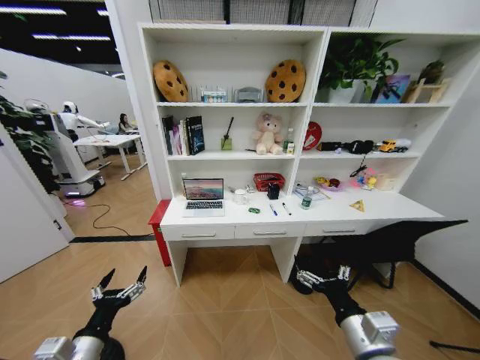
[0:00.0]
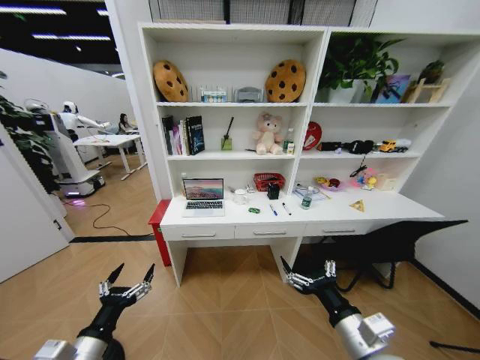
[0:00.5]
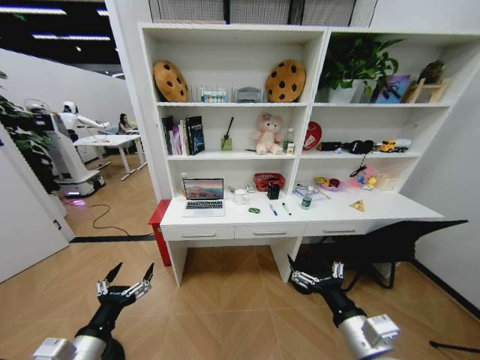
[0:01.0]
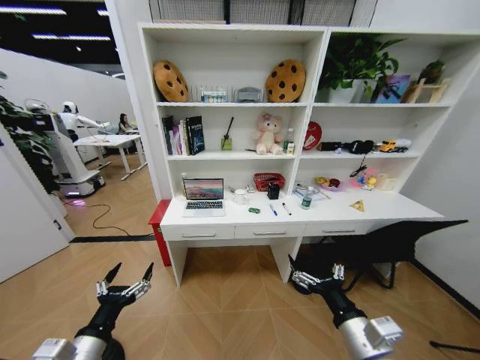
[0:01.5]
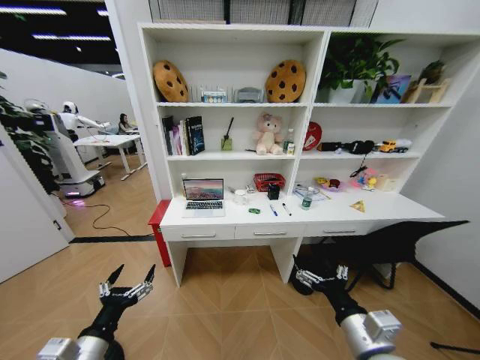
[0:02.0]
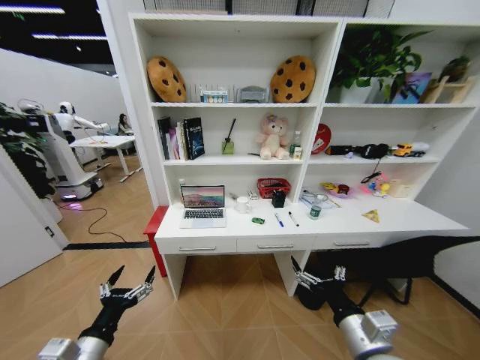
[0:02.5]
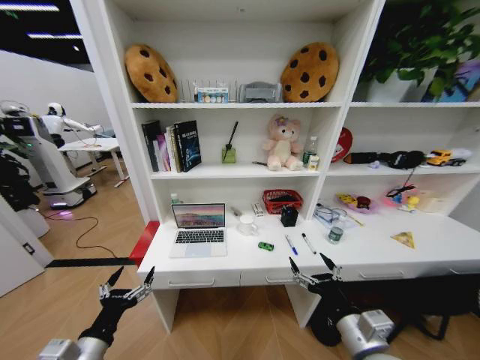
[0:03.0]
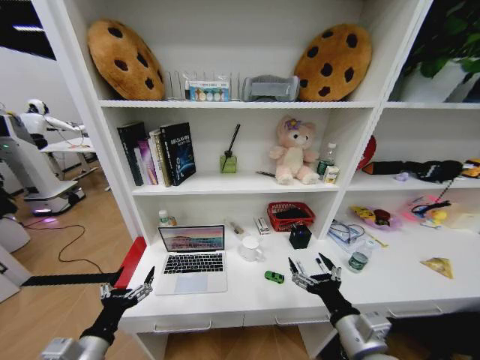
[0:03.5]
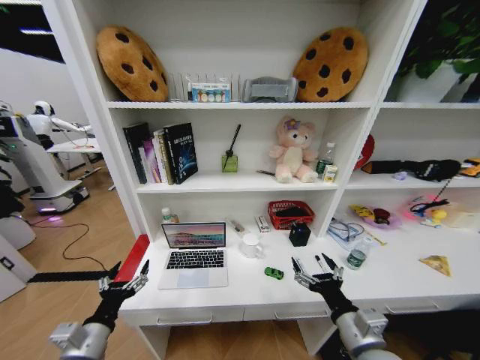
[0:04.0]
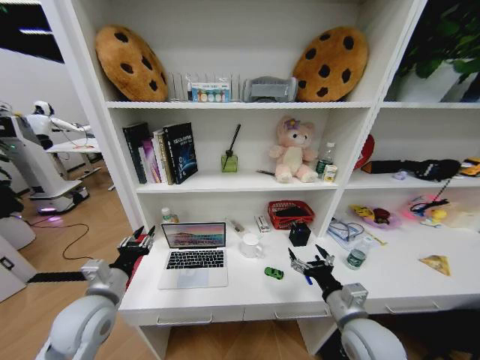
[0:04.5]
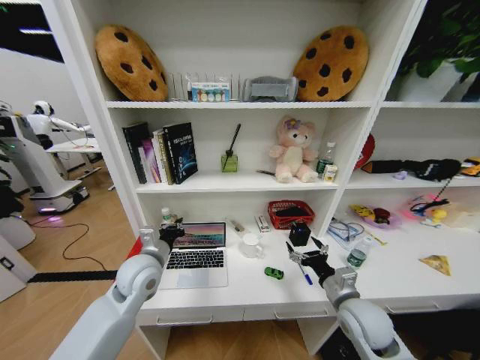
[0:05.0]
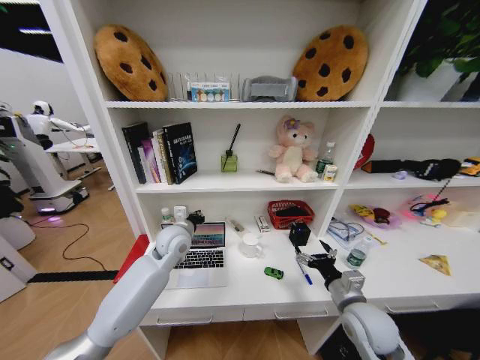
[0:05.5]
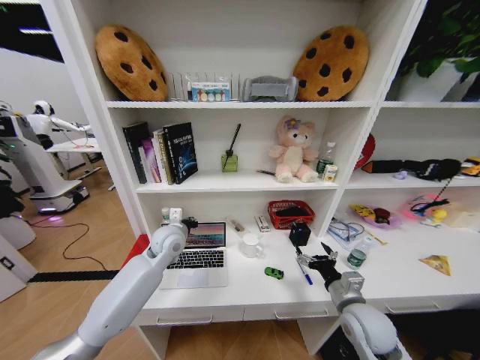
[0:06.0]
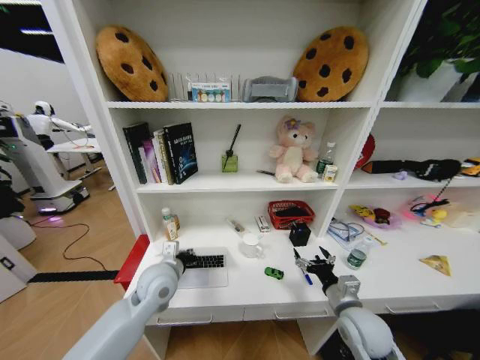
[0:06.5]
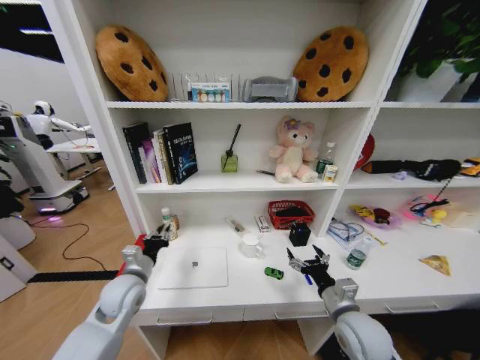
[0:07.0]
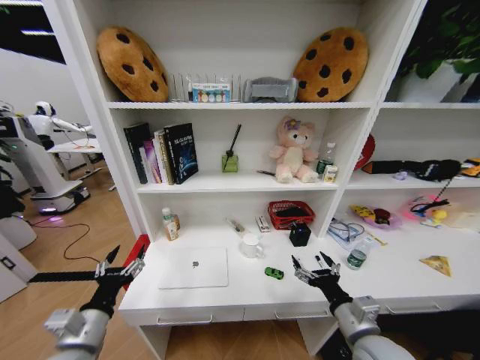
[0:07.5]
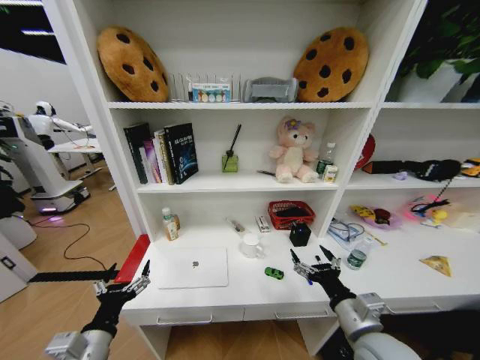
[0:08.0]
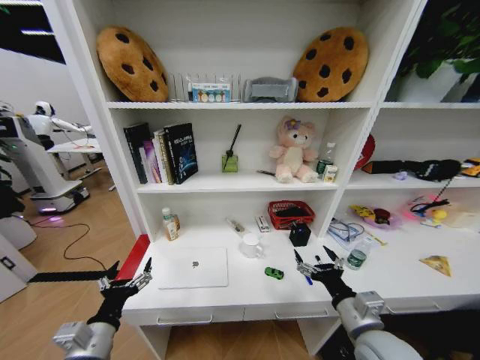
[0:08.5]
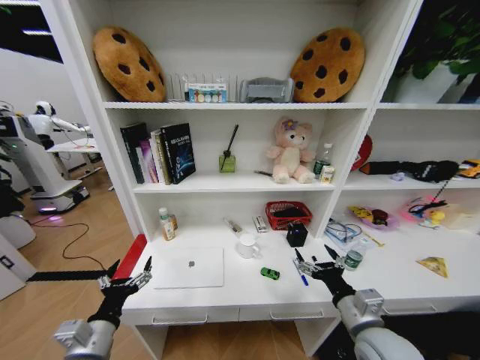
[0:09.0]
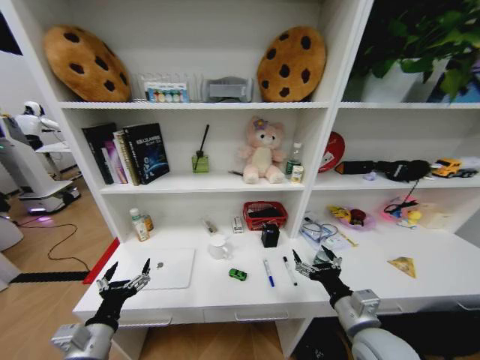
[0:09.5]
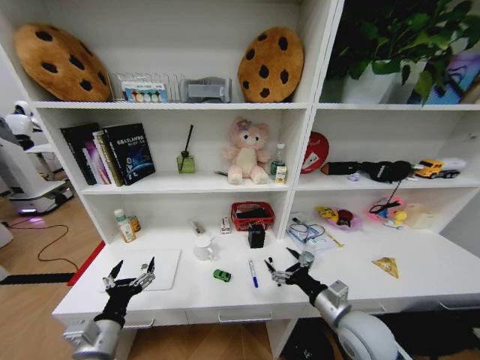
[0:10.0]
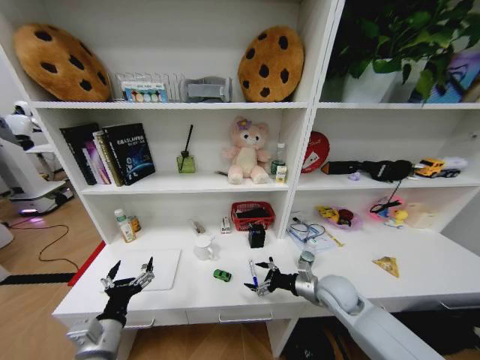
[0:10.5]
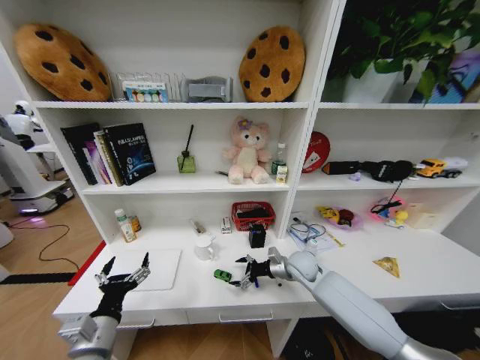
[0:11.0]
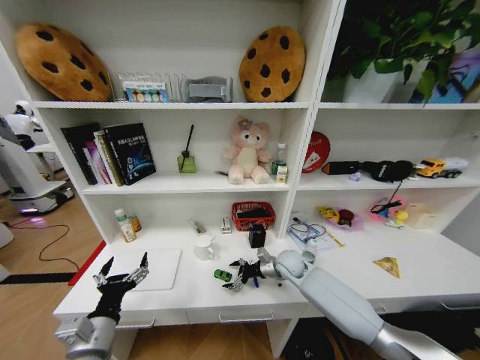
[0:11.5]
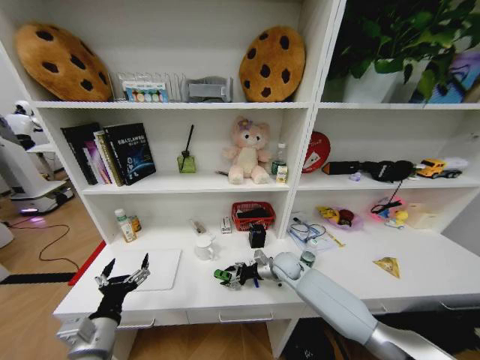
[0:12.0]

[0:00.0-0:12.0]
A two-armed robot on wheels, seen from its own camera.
Task of the whole recording: Organize the objects on the table.
4.0 to 6.0 s: The left gripper heads forward and to the right, covering approximately 30 cm, and closes; the right gripper shifts roughly 10 cm forward.
6.0 to 8.0 s: The left gripper is displaced backward by some 30 cm, and opens its fingers; the right gripper shifts approximately 10 cm backward and upward.
8.0 to 10.0 s: The right gripper moves roughly 5 cm.
10.0 to 12.0 s: The right gripper goes approximately 20 cm forward, and closes its fingers.

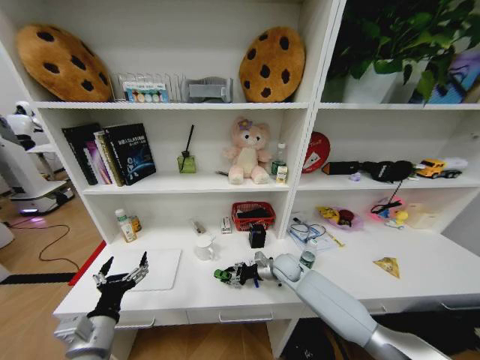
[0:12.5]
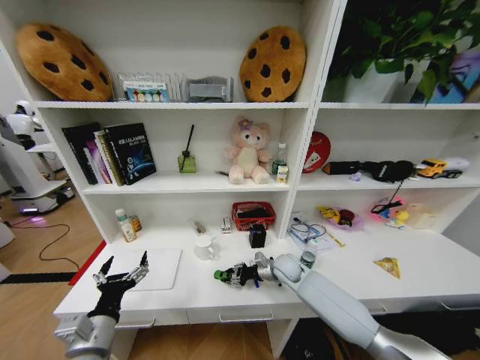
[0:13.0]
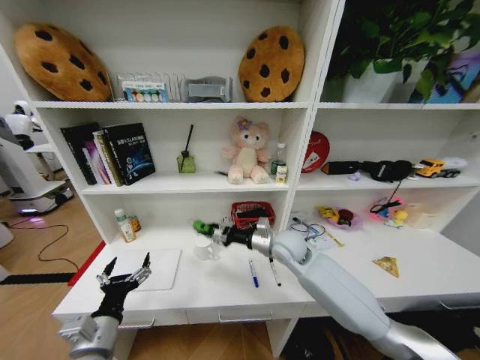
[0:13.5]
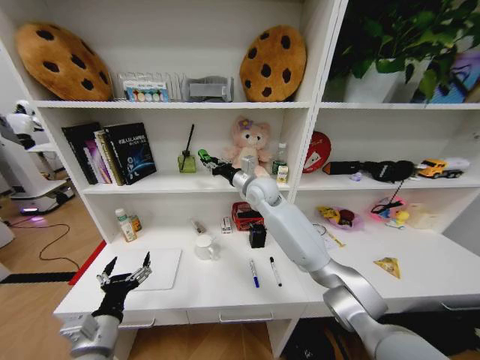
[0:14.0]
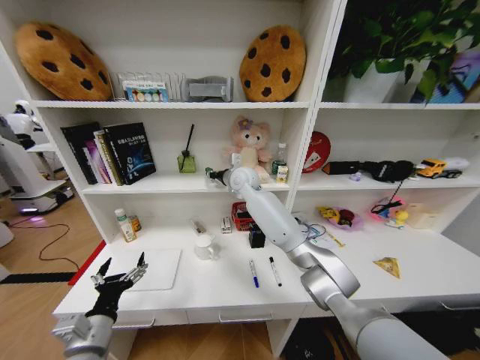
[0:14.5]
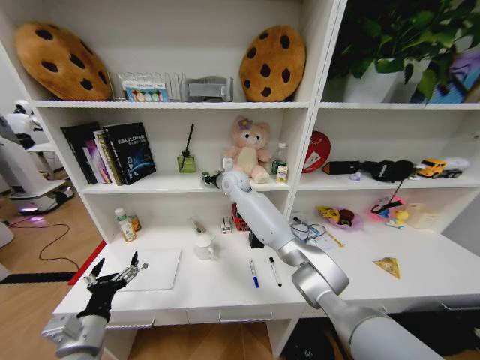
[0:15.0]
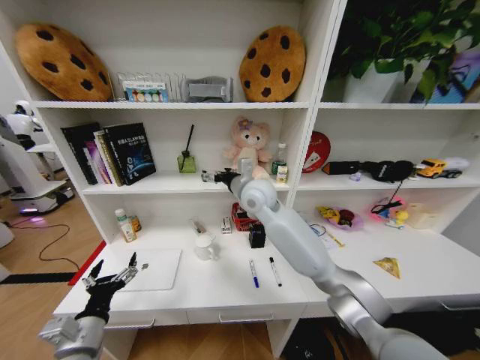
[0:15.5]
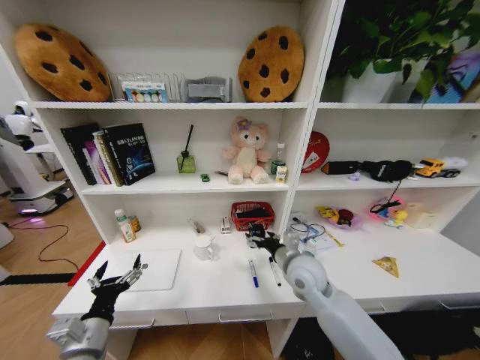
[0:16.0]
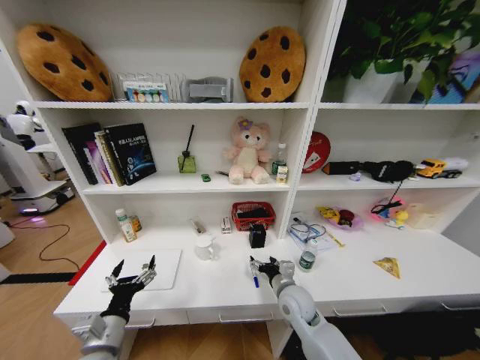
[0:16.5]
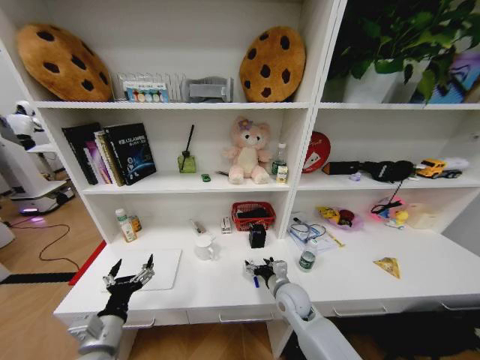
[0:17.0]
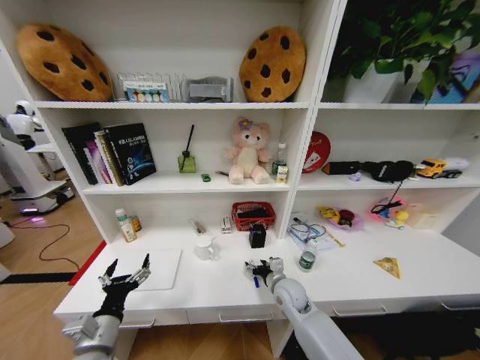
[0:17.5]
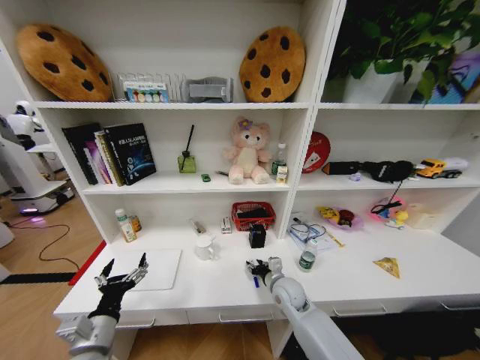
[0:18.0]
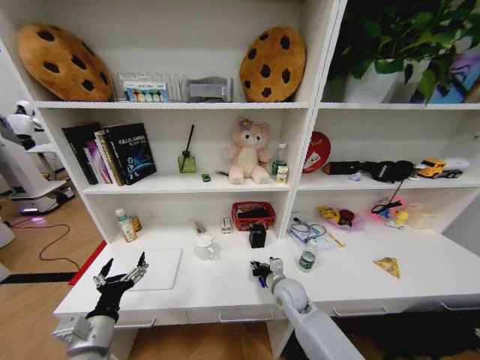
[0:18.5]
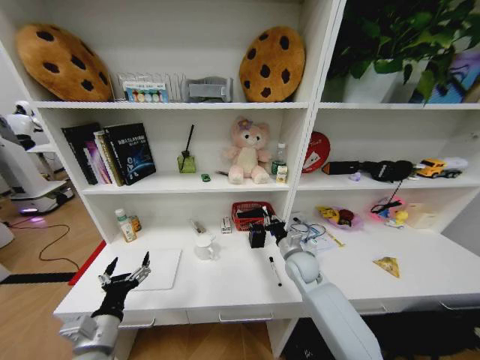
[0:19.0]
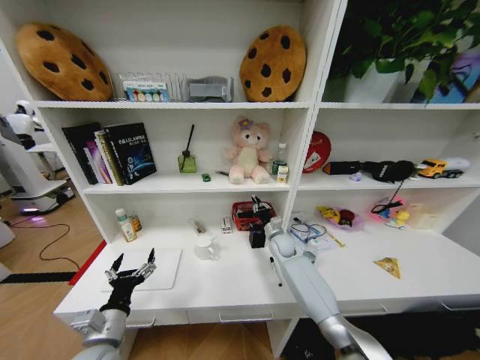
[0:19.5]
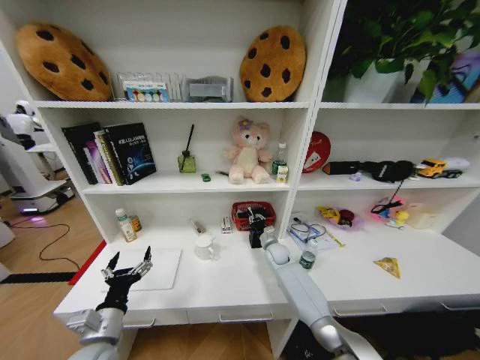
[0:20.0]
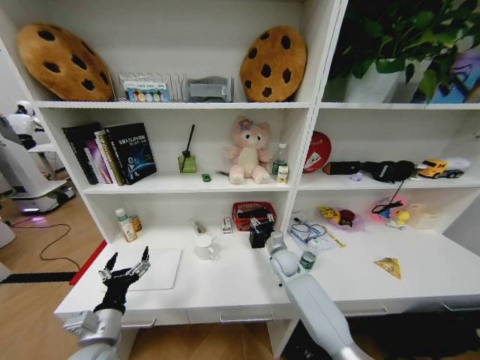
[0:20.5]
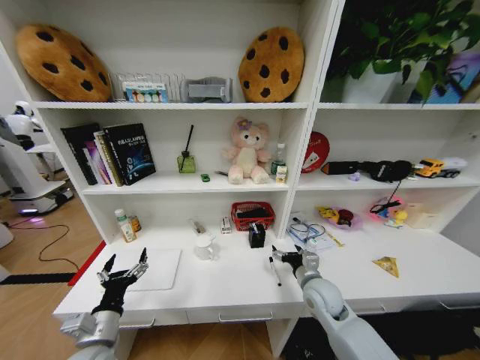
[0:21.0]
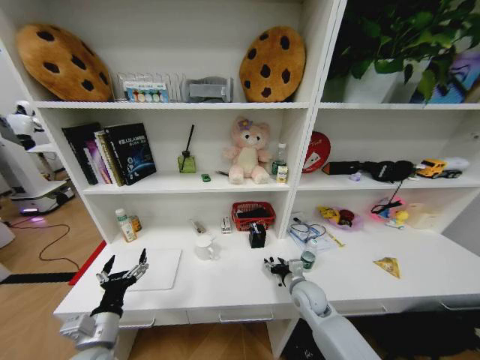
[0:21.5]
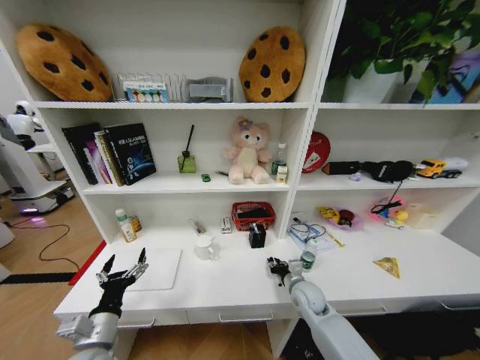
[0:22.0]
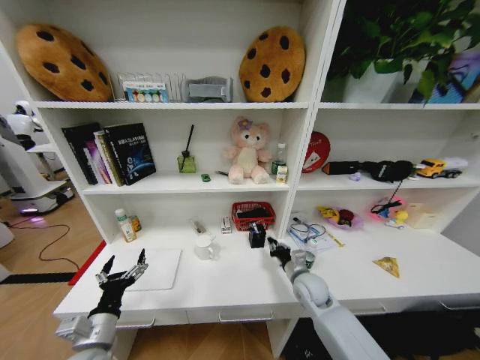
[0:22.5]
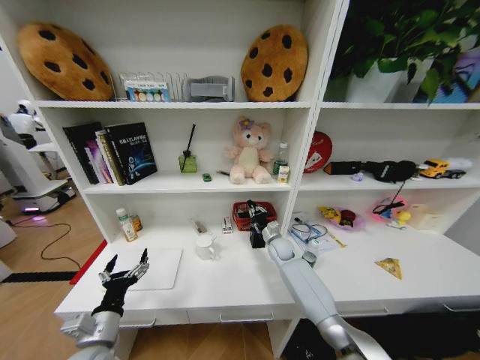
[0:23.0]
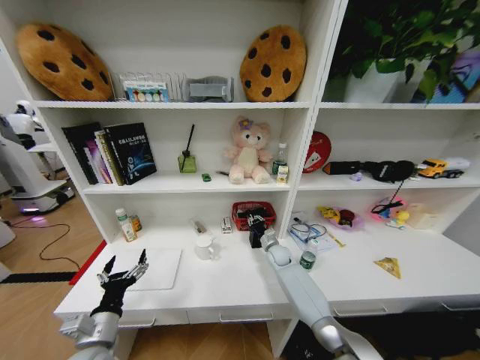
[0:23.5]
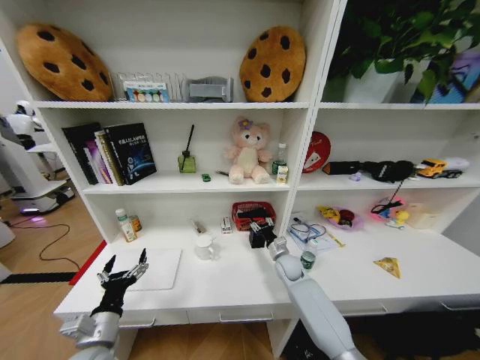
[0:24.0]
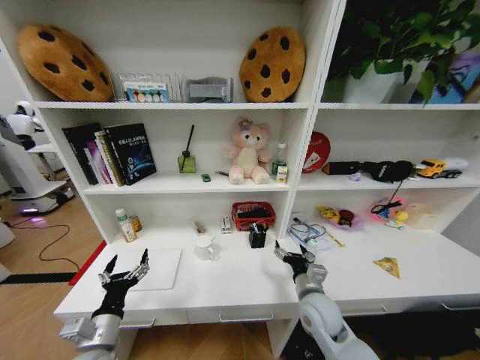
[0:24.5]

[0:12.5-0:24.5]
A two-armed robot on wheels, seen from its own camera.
Task of the whole recording: Organize the objects on the table.
12.5 to 14.5 s: The right gripper travels upward, to the left and forward by approximately 35 cm.
14.5 to 16.5 s: The right gripper moves backward, downward and to the right, some 40 cm, and opens up.
16.5 to 18.5 s: The right gripper closes up.
18.5 to 20.5 s: The right gripper goes some 15 cm forward, and opens.
20.5 to 22.5 s: The right gripper shifts some 10 cm backward, and closes its fingers.
22.5 to 24.5 s: The right gripper goes forward and returns, some 15 cm each way, and opens.

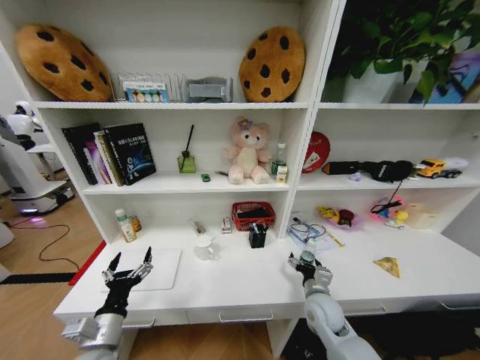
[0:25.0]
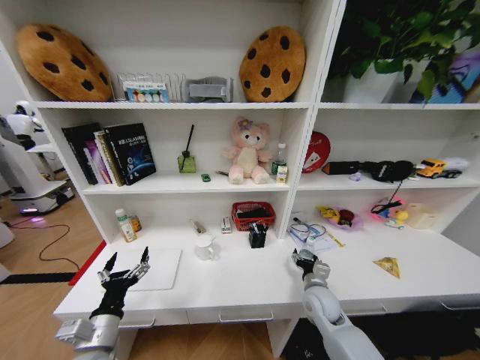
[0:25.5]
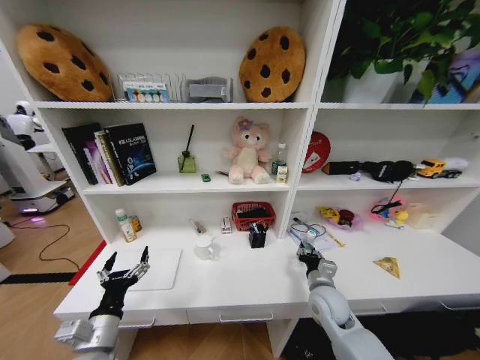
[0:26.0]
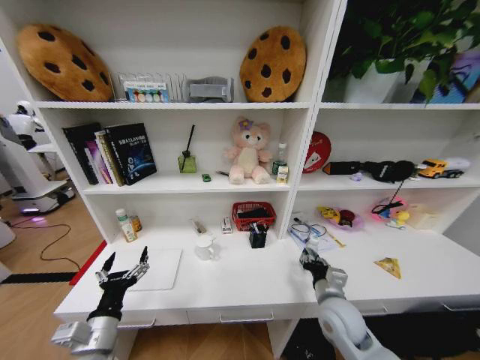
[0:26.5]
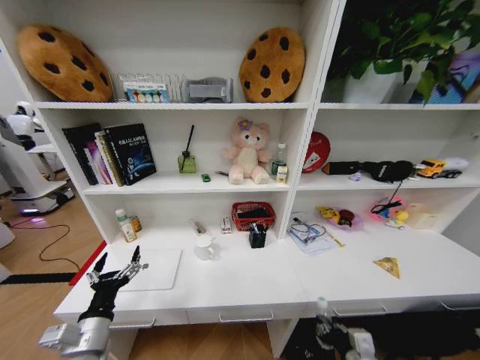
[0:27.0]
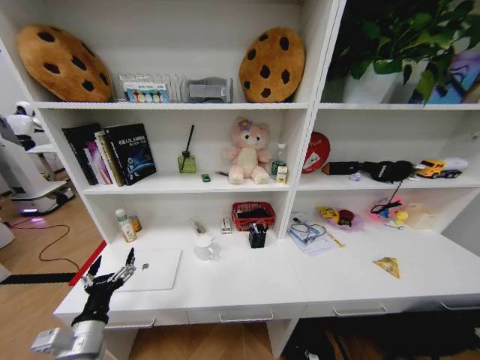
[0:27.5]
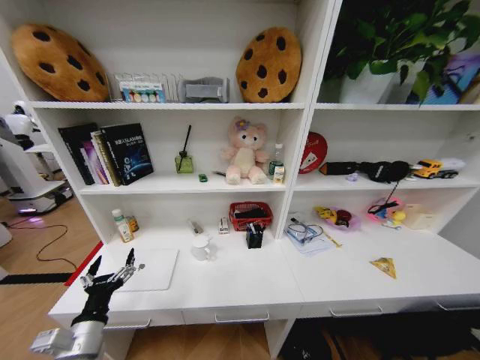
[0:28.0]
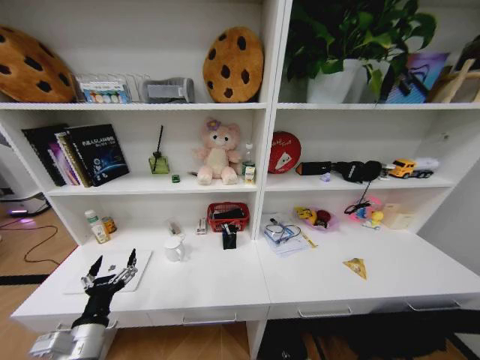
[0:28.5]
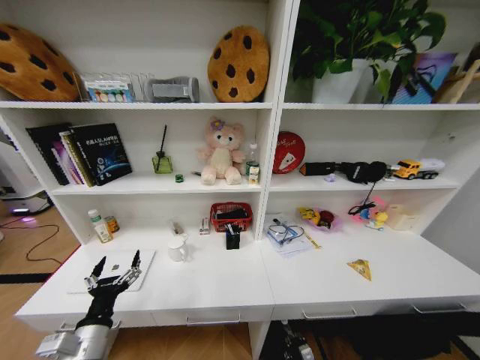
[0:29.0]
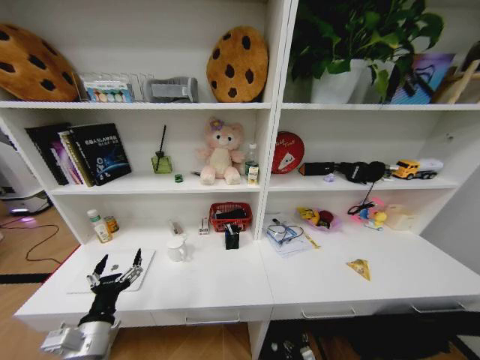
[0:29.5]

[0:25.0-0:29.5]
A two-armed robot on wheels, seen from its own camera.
Task of the whole recording: Organize the objects on the table.
25.0 to 27.0 s: The right gripper moves backward, roughly 15 cm, and closes.
27.0 to 29.5 s: The right gripper moves downward, approximately 35 cm, and opens up.
